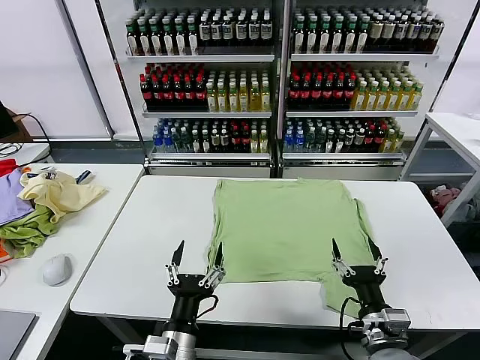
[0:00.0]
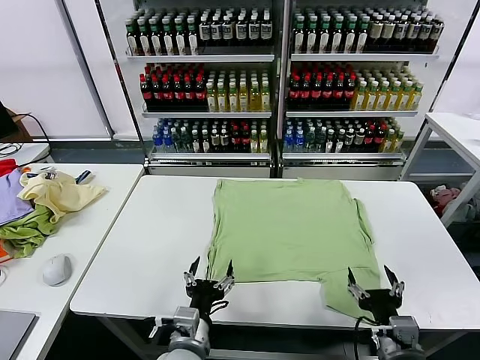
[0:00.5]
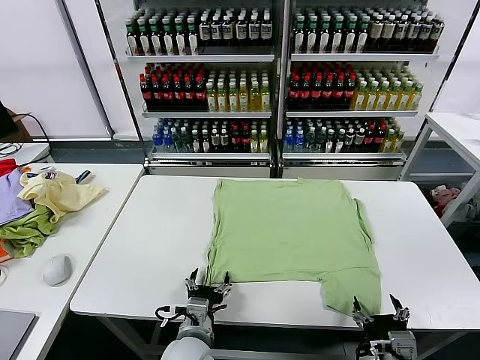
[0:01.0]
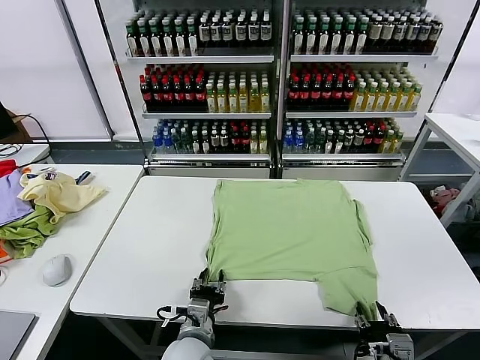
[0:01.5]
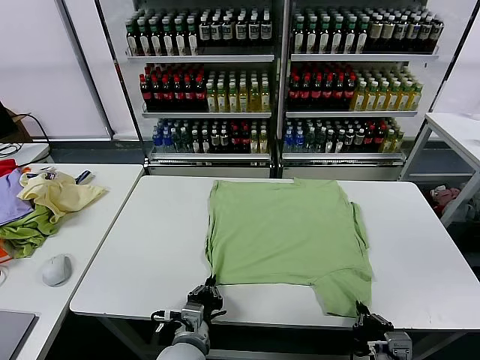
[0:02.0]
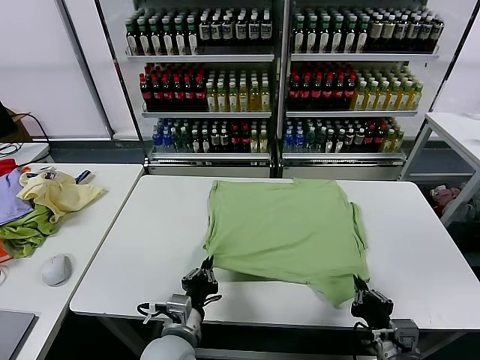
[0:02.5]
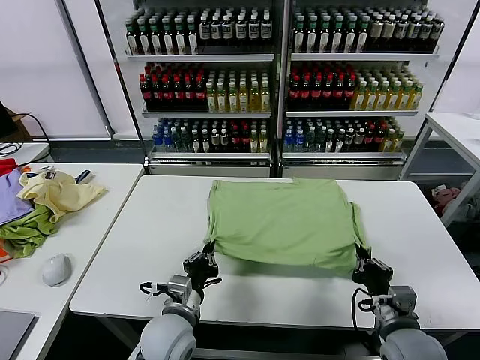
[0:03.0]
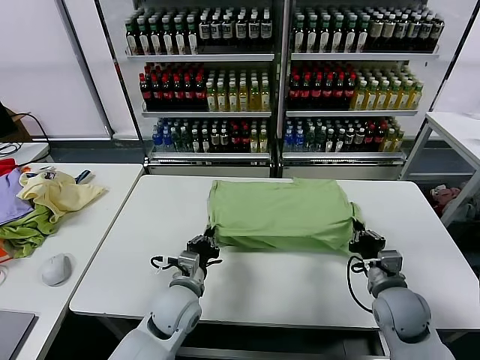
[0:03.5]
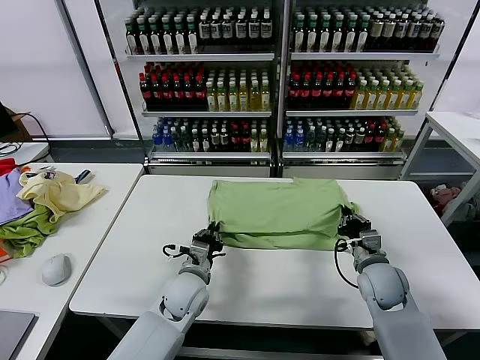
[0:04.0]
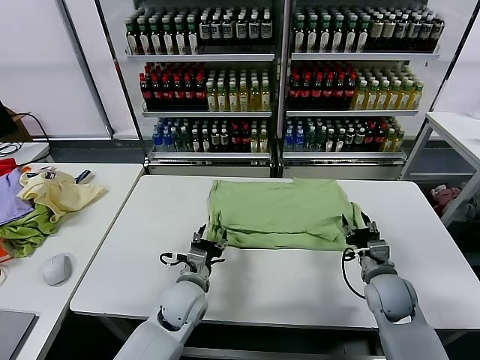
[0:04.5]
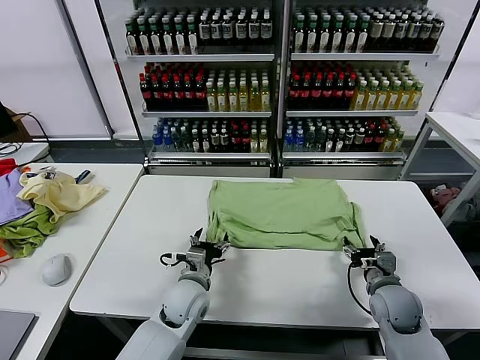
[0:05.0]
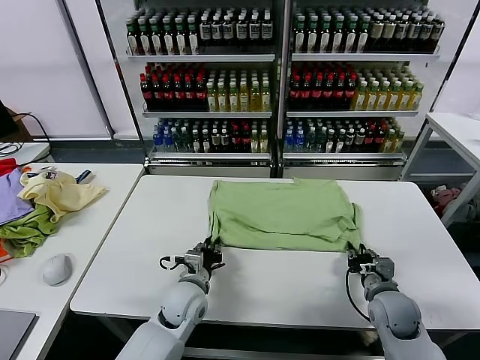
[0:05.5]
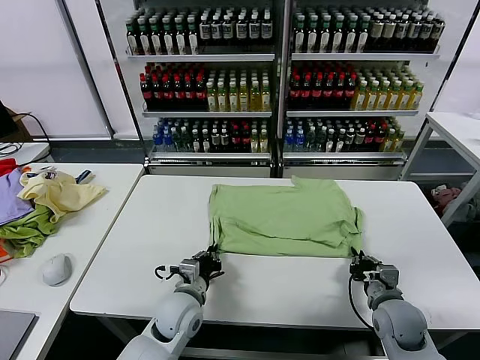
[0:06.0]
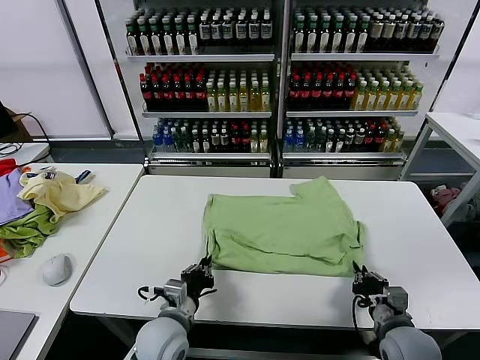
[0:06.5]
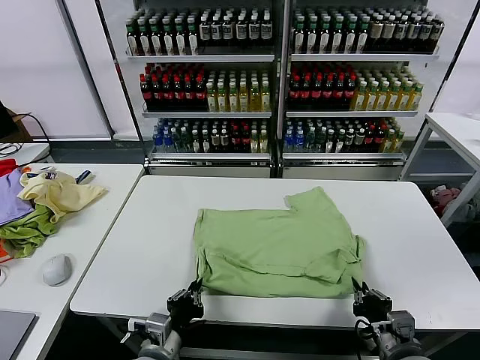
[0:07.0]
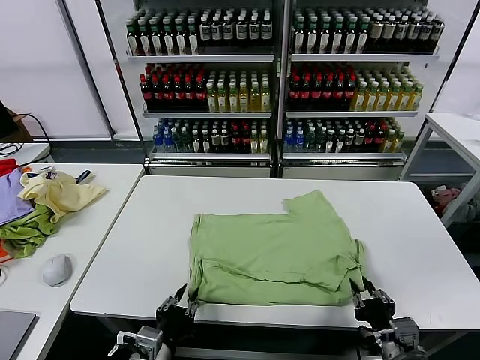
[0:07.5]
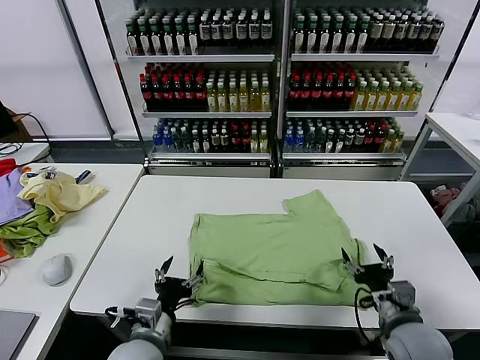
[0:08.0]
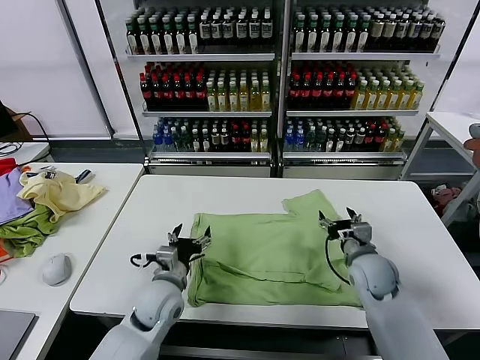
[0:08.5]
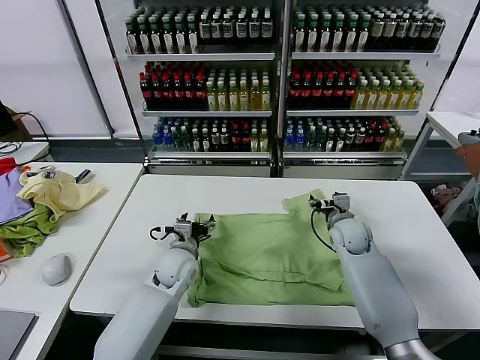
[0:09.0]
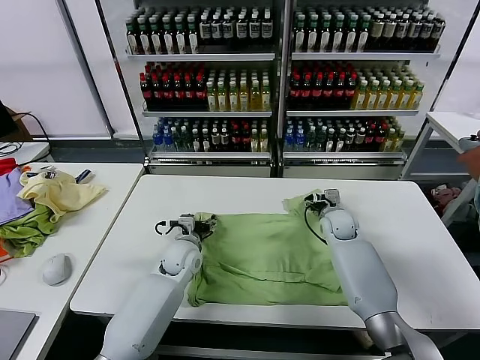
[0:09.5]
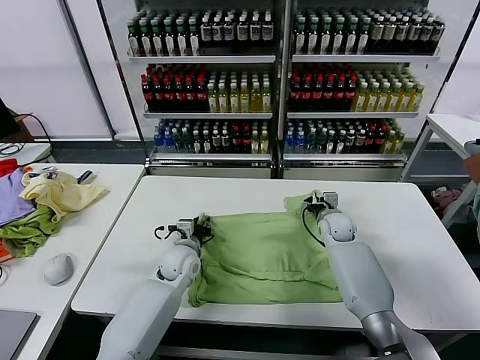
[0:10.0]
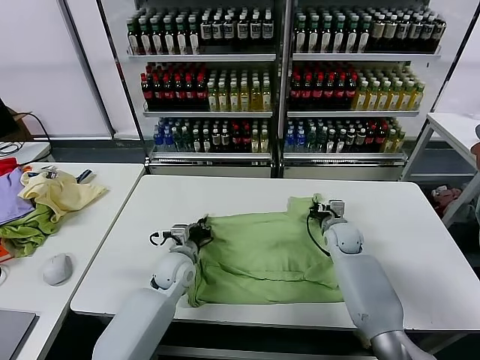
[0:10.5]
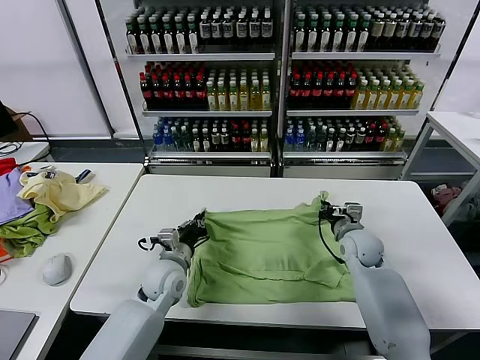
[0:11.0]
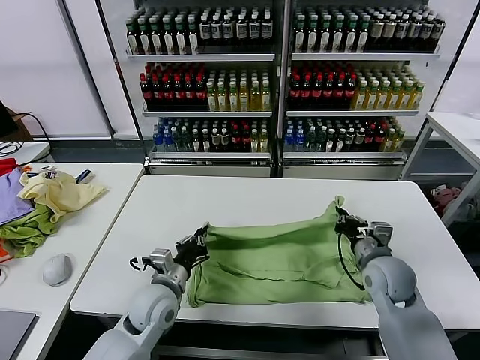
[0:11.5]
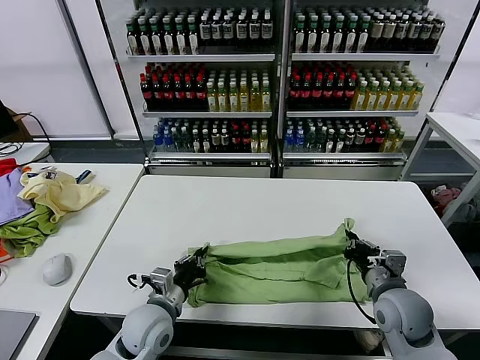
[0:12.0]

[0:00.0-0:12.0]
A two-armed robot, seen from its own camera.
Task of the whole recording: fold and organize the clothes.
Step, 0:00.0 to 0:02.0: use both grippers simultaneously to clamp the lower edge of the clothing fabric.
Step, 0:02.5 to 0:04.0: use both grippers to drag the lower edge of the fabric forward and fold it over the upper edge.
Step, 0:04.5 to 0:07.5: Drag the clothes downward with both gripper.
Step, 0:08.0 to 0:10.0: use both grippers simultaneously to clamp the upper edge of the clothing fabric.
0:02.0 to 0:04.0: The left gripper travels forward by roughly 15 cm; the right gripper moves forward, roughly 25 cm.
0:04.0 to 0:06.0: The left gripper opens, then closes once more. The right gripper moves backward, roughly 10 cm, and opens, then closes again.
0:06.0 to 0:08.0: The left gripper travels backward and to the left by approximately 15 cm, and opens up; the right gripper goes approximately 5 cm upward, moves about 15 cm backward and comes back, and opens its fingers.
0:08.0 to 0:10.0: Both grippers travel together forward, approximately 25 cm. The right gripper closes. The left gripper closes.
0:10.0 to 0:12.0: The right gripper travels backward by approximately 25 cm, and closes. The left gripper shifts approximately 15 cm backward, and closes its fingers.

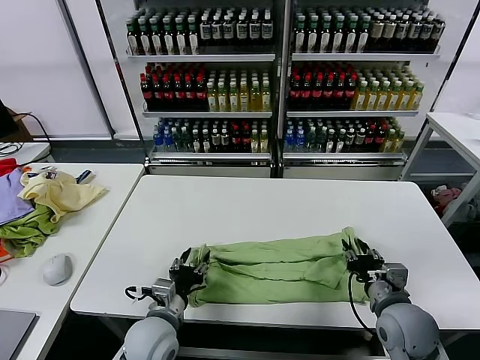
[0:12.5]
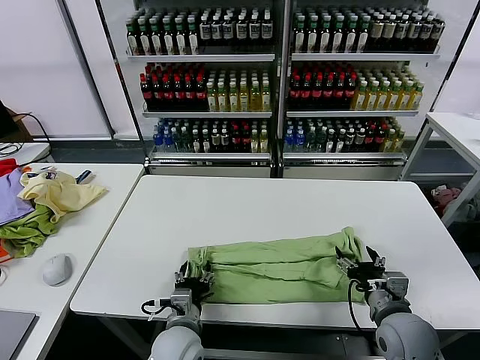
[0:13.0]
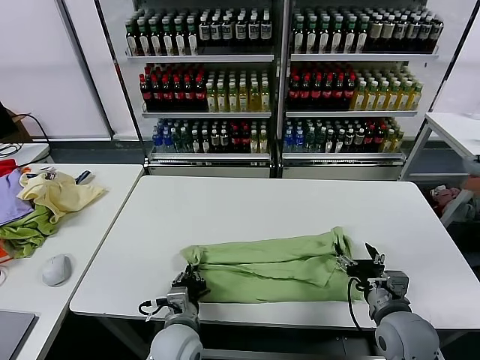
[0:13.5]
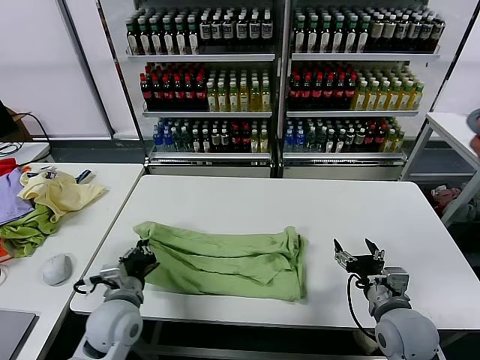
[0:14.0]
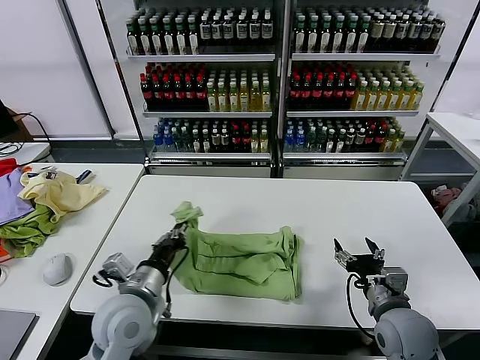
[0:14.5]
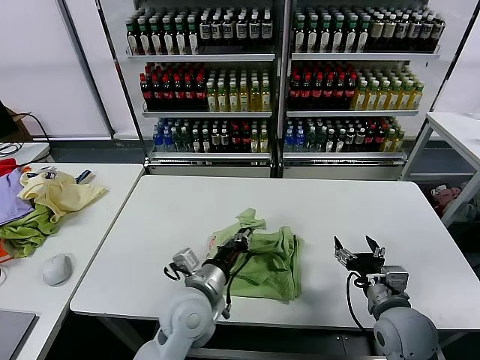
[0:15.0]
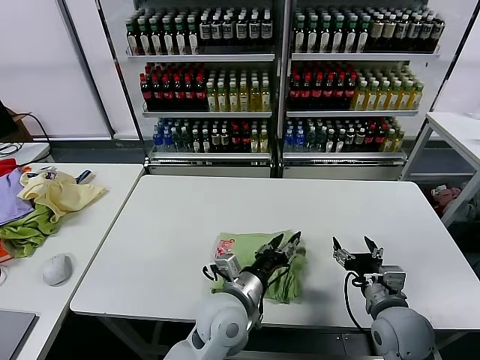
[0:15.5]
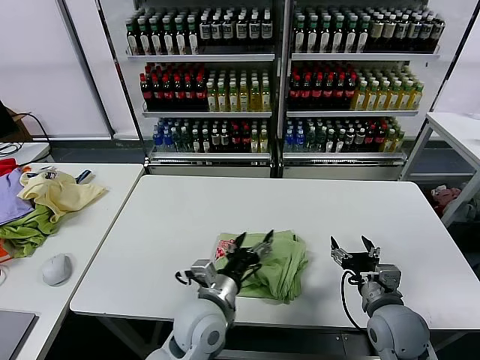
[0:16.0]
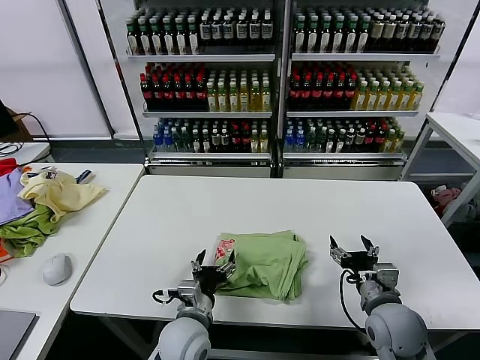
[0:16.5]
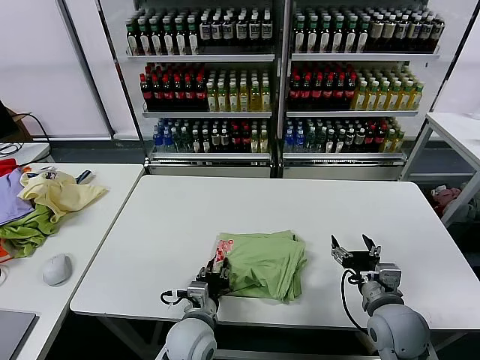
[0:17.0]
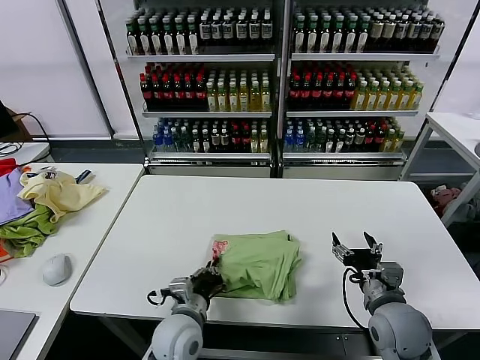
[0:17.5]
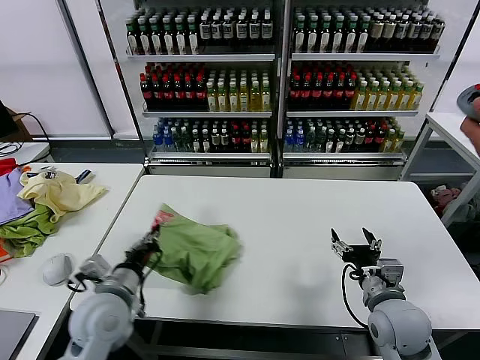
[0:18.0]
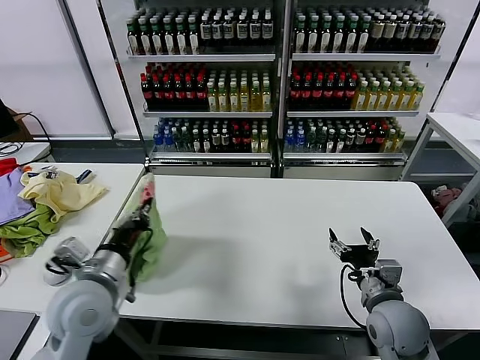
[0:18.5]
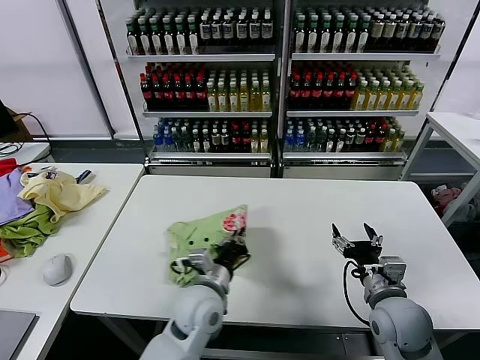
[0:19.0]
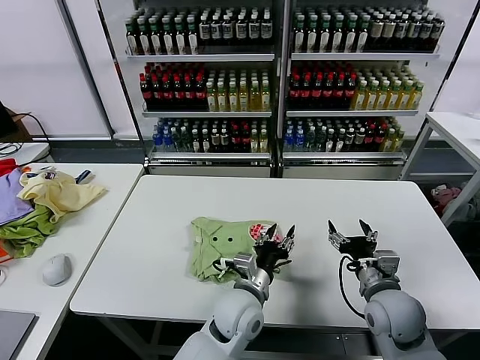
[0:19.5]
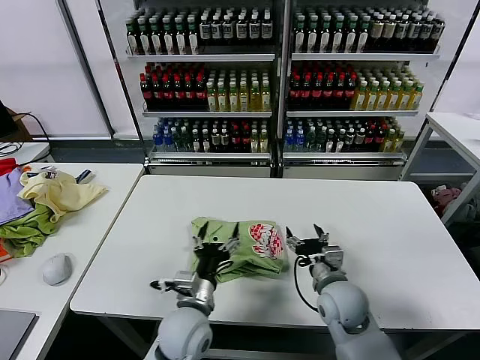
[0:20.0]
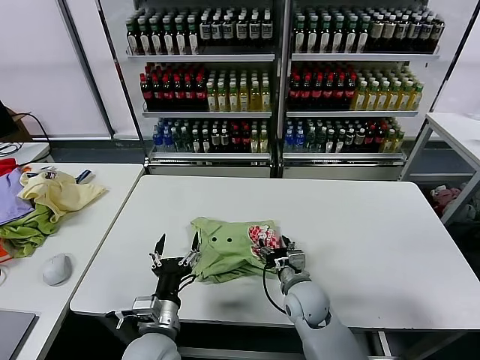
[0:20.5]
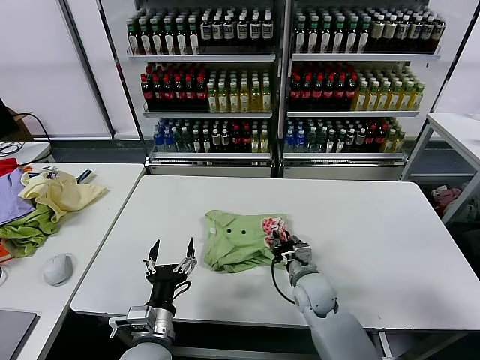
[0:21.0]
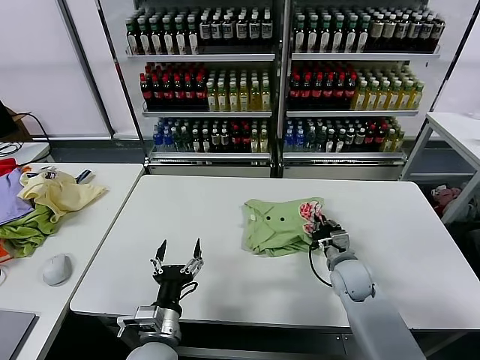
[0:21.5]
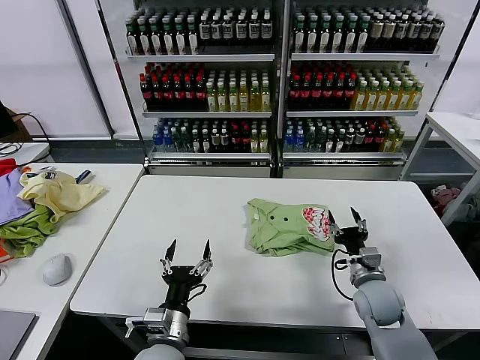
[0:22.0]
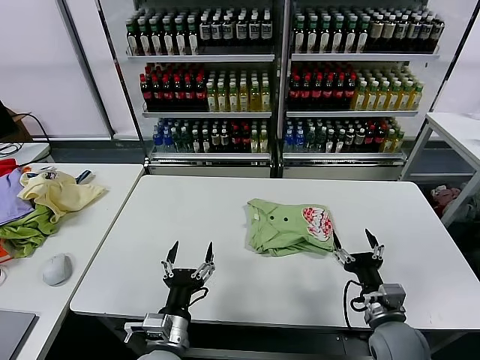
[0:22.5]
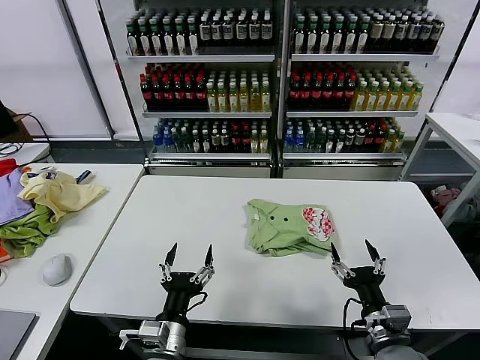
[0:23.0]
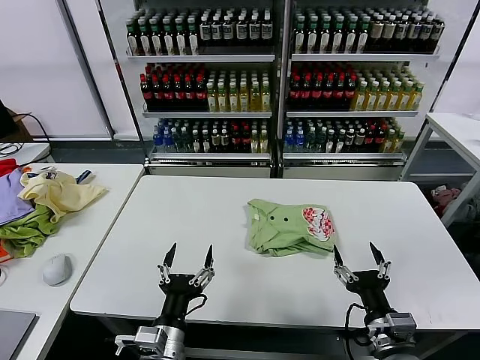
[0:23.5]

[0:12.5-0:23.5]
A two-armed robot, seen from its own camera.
Task of the whole recording: fold and organize the clothes.
Step, 0:13.0 to 0:13.5: use the left gripper to clamp the left edge of the fabric.
Step, 0:14.0 to 0:15.5: use the left gripper to drag the left edge of the fabric to the left and folds it over the right edge.
Step, 0:16.0 to 0:19.0: Flip the folded clothes over with left gripper.
Step, 0:19.5 to 0:21.5: Drag the clothes to the center of the table.
0:12.5 to 0:14.5: The right gripper opens, while the left gripper travels upward by approximately 10 cm, and closes.
0:14.5 to 0:16.0: The left gripper heads to the right, covering approximately 15 cm, and opens up.
0:16.0 to 0:18.0: The left gripper goes roughly 15 cm to the left, and closes.
0:18.0 to 0:20.0: The left gripper is displaced to the right by about 15 cm, and opens up; the right gripper shifts some 10 cm to the left and forward.
0:20.0 to 0:21.5: The right gripper travels forward by approximately 10 cm, and closes up. The left gripper travels to the left and backward by some 10 cm.
0:21.5 to 0:23.5: The right gripper moves backward, roughly 20 cm, and opens its fingers.

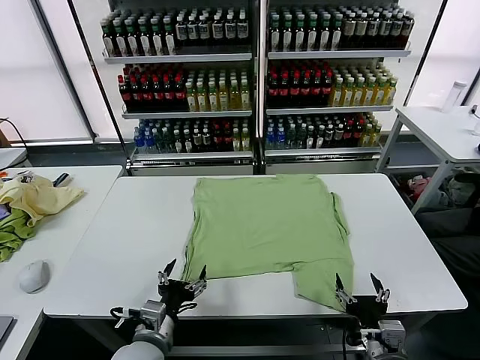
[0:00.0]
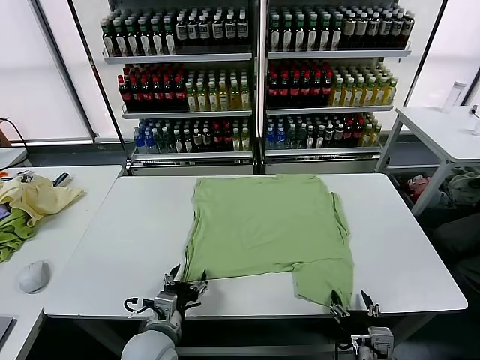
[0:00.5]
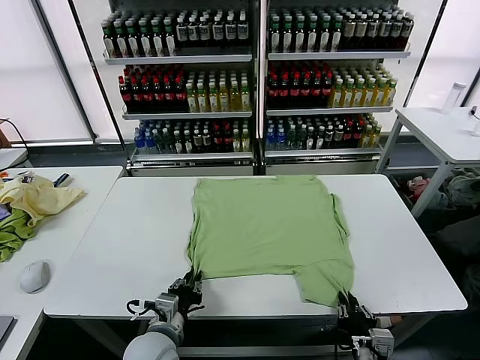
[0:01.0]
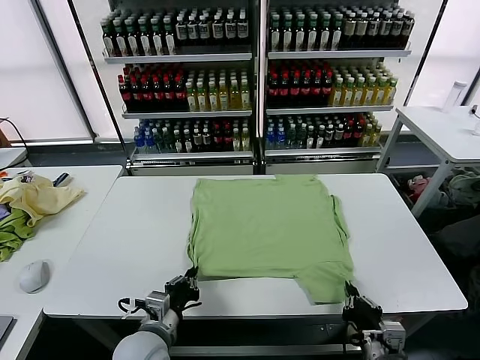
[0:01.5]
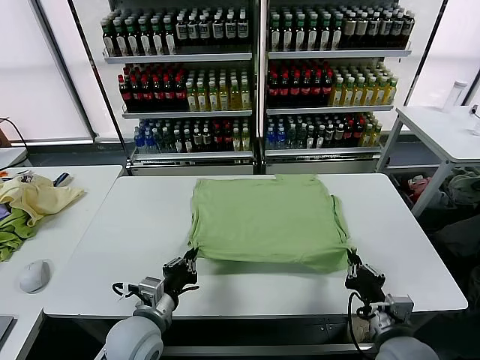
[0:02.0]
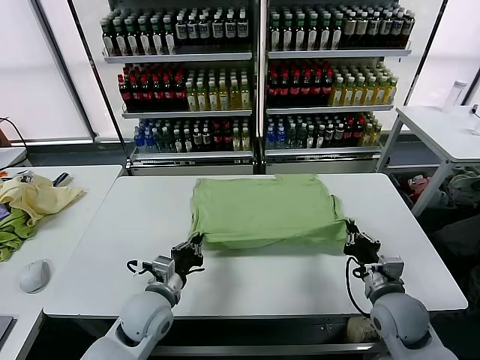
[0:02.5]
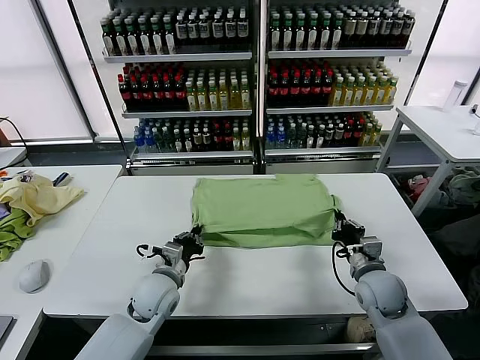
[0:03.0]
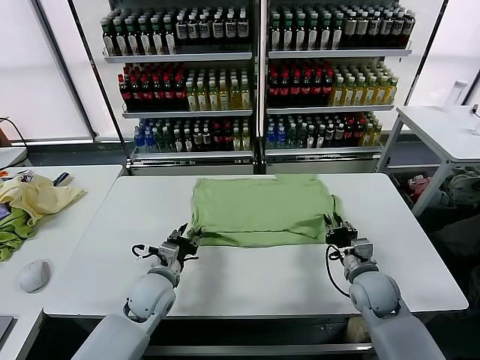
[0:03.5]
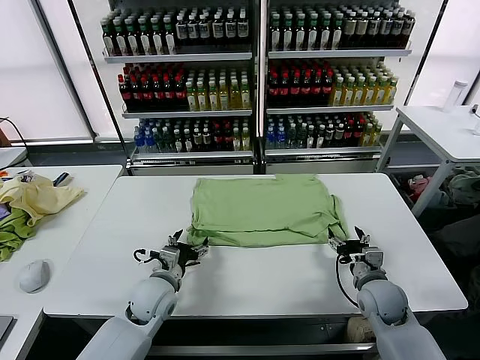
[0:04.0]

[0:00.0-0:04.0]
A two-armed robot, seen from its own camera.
Task of the whole recording: fold and organize the clothes.
Step, 0:00.0 to 0:01.0: use both grippers simultaneously to clamp the lower edge of the clothing fabric.
Step, 0:01.5 to 0:03.5: use both grippers to drag the lower edge of the fabric forward and fold it over the upper edge.
0:02.0 to 0:04.0: The left gripper heads forward, covering roughly 10 cm, and opens its fingers, while the right gripper shifts roughly 15 cm forward and downward, and opens.
